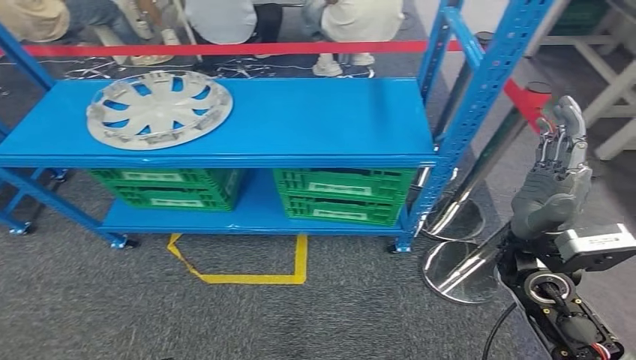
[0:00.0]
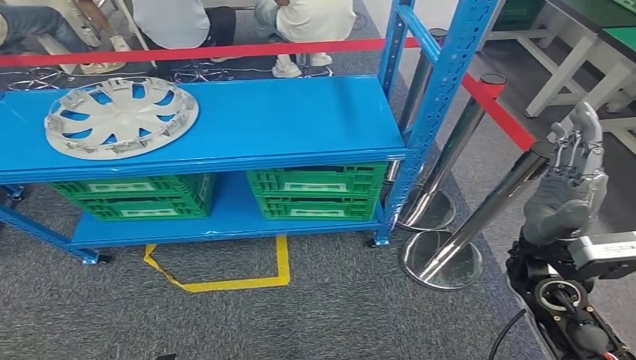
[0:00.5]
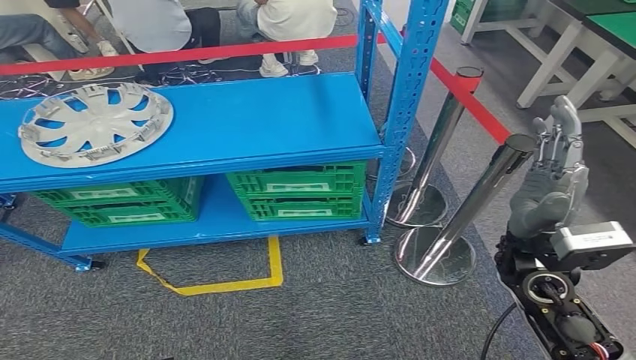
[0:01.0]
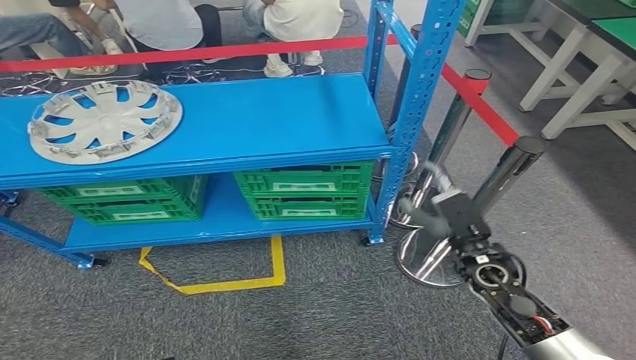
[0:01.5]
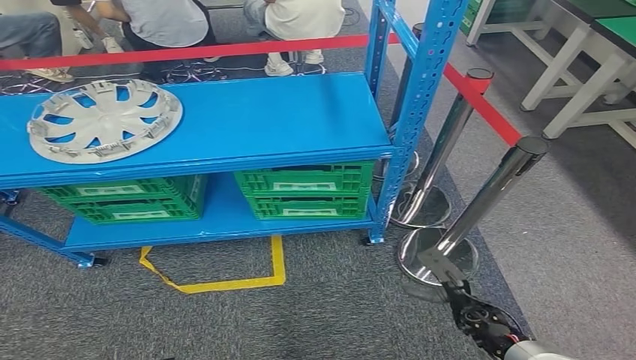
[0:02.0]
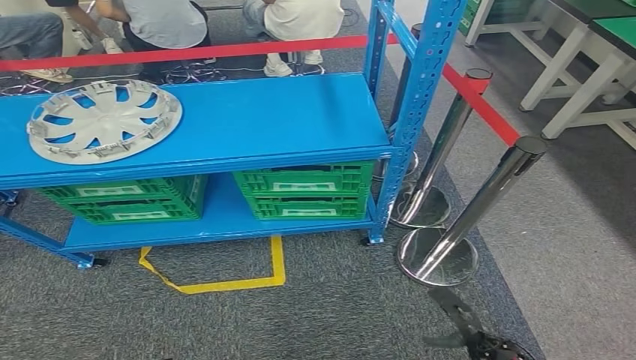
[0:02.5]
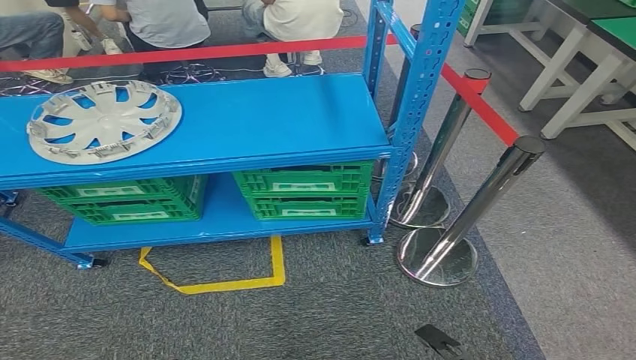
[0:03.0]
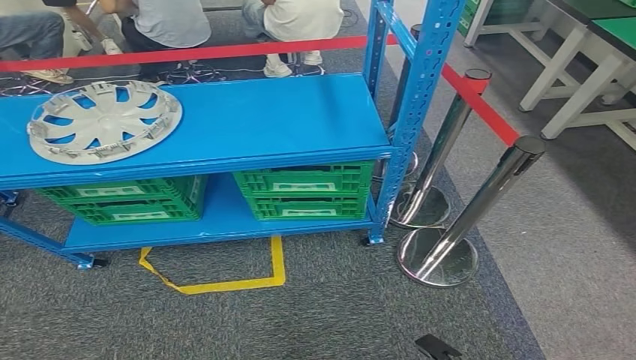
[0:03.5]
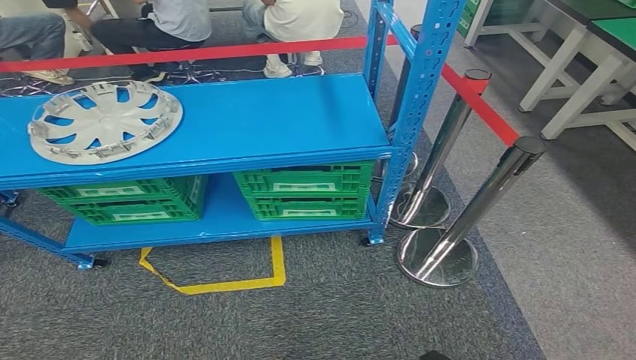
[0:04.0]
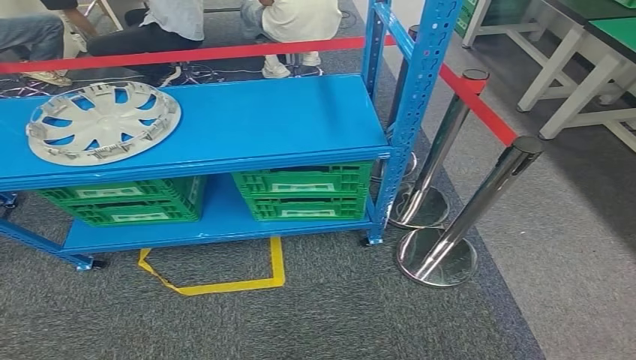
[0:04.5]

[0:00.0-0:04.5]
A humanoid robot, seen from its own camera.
Step, 0:00.0 to 0:04.5: Return to the initial position at the workbench.
0:02.0 to 0:04.5: The right hand goes approximately 20 cm backward. The left hand is displaced backward by some 5 cm.
